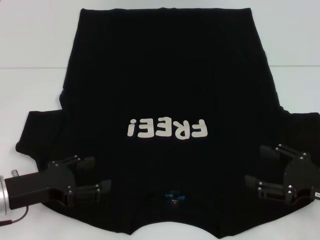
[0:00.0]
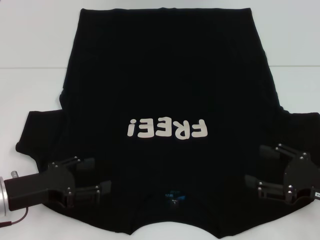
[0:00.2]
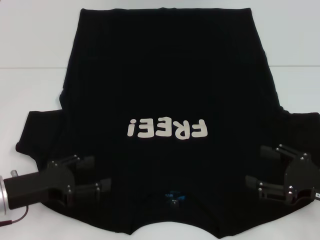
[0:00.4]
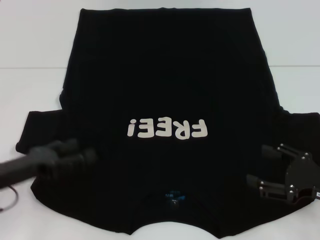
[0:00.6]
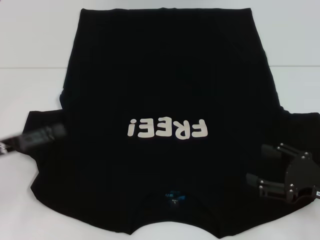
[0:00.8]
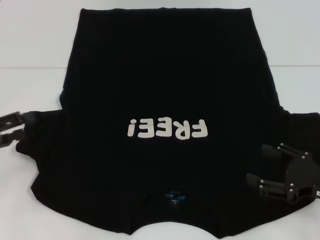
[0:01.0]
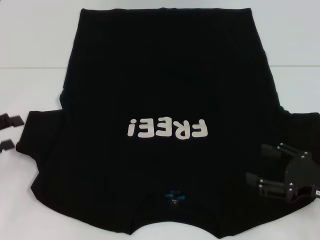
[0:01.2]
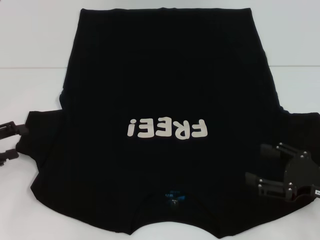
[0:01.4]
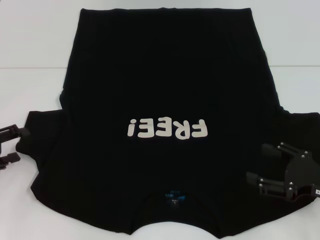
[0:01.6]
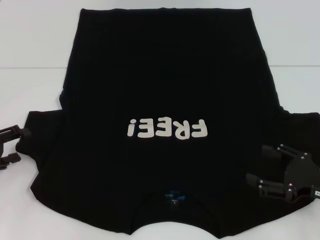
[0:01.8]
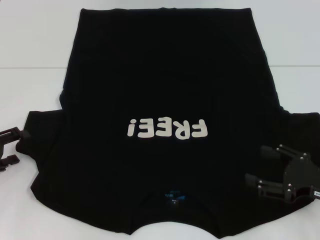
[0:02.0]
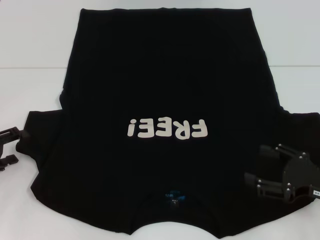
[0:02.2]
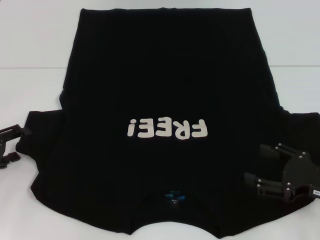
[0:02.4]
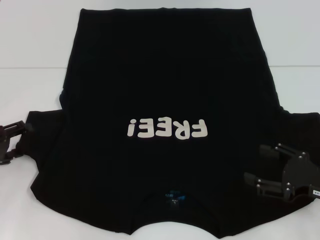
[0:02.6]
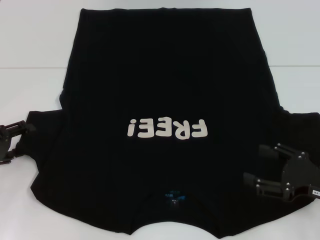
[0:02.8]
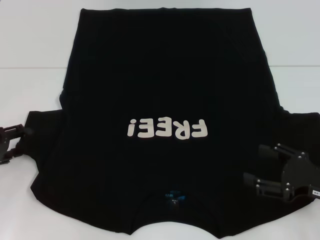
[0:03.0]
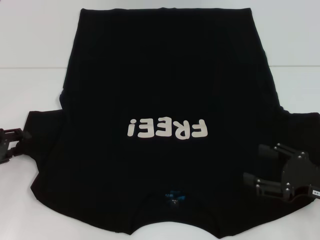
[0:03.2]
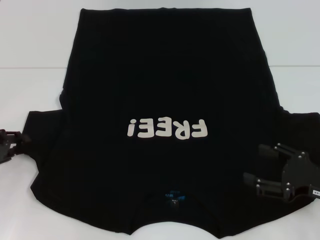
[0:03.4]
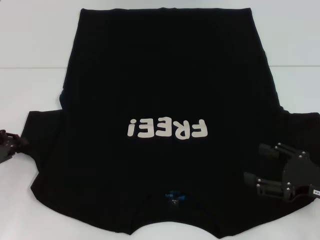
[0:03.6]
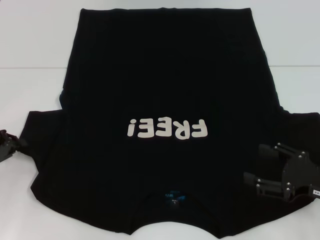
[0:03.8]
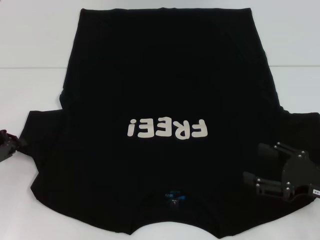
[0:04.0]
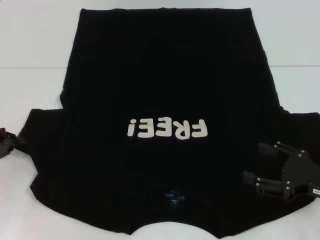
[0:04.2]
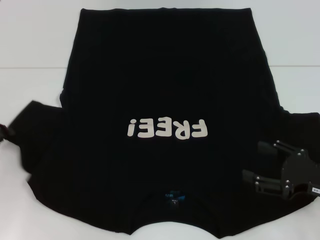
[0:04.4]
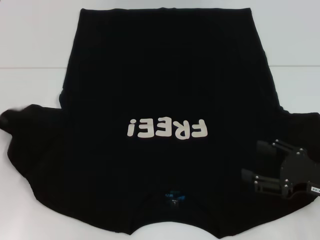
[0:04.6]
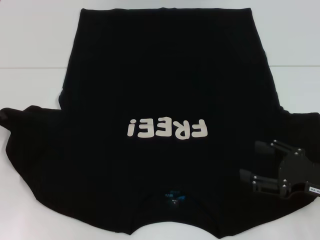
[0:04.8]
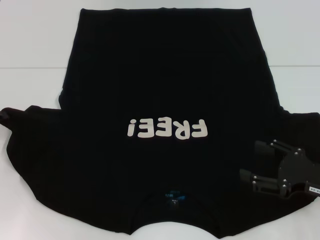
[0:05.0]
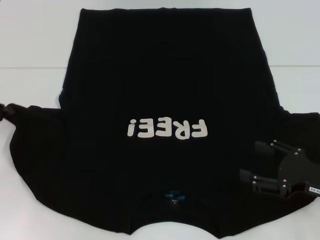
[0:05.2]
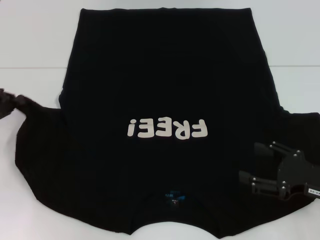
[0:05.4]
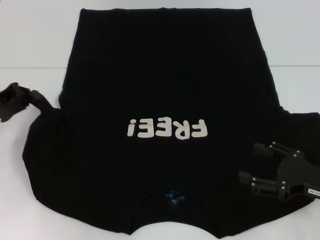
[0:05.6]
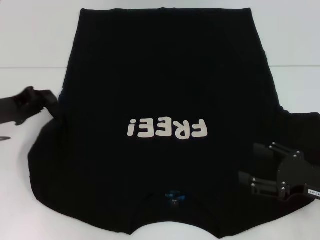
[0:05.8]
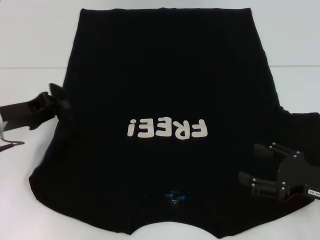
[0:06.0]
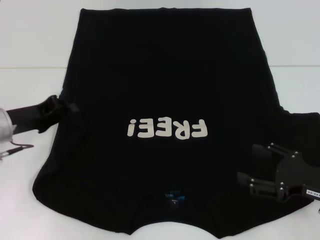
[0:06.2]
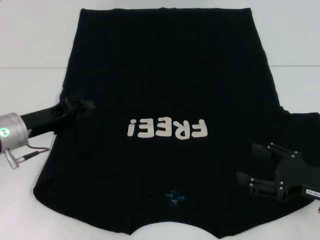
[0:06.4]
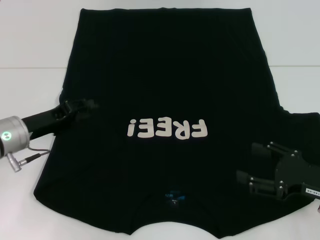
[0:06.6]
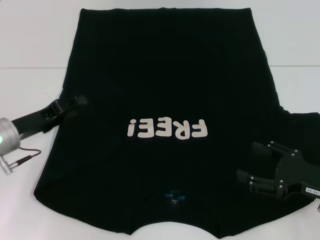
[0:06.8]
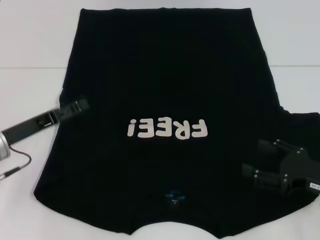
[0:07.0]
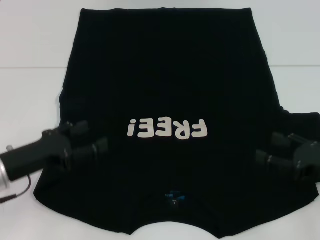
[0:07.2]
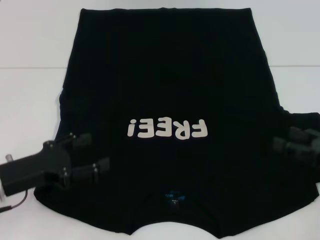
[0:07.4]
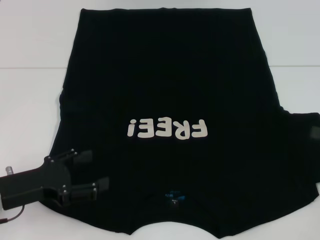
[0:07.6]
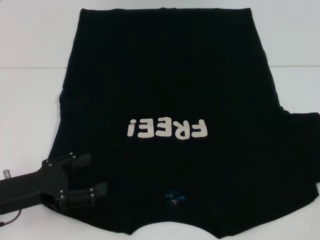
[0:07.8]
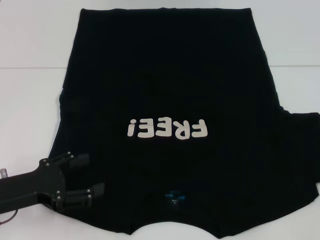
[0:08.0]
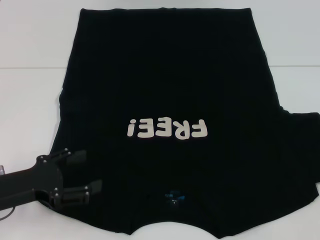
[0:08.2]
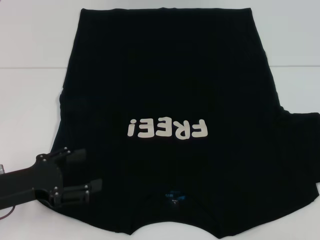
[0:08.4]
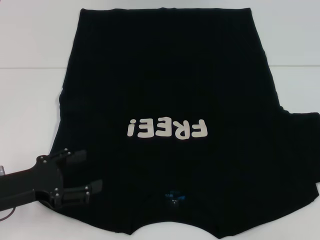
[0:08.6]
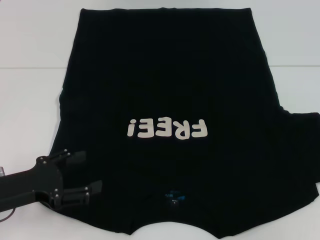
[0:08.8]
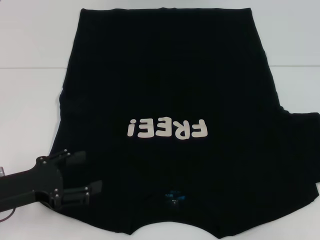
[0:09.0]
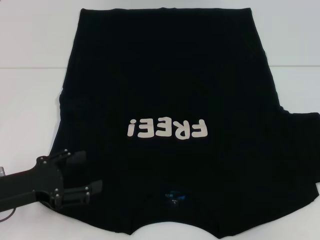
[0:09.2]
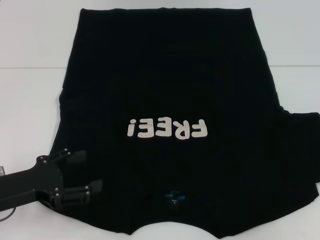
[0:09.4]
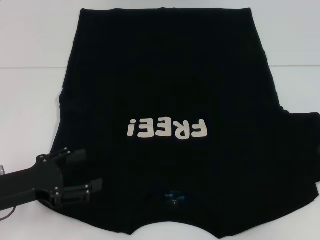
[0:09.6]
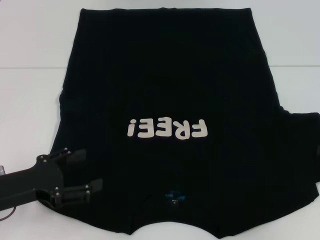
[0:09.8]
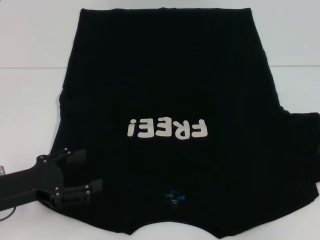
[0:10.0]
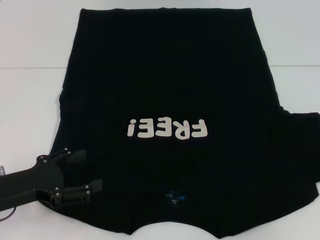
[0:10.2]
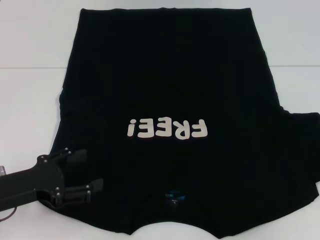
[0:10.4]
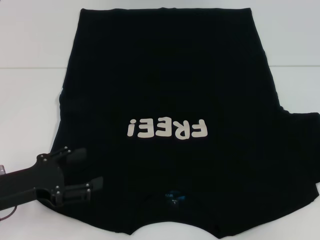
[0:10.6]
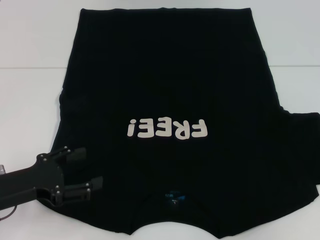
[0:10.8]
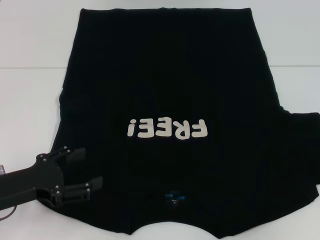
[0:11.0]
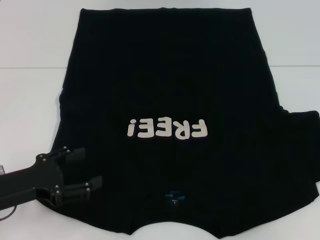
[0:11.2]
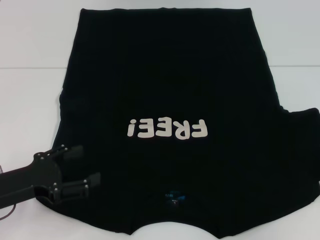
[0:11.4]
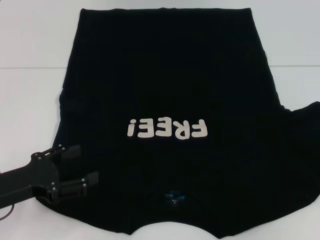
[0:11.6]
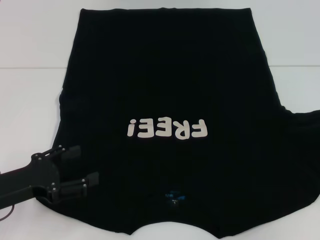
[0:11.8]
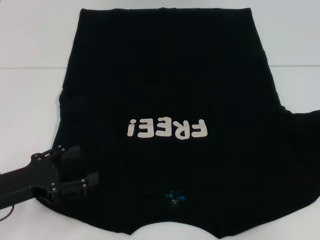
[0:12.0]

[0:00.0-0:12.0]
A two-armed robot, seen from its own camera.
Step, 0:00.0 to 0:08.6: Fold the bottom left sleeve with your left hand.
0:00.0 to 0:01.6: The left gripper is displaced to the left by about 10 cm.
0:03.0 to 0:04.4: The left gripper closes up.
0:04.4 to 0:06.0: The left gripper travels to the right by some 5 cm.
0:06.0 to 0:07.6: The left gripper goes some 10 cm backward, and opens its fingers, while the right gripper heads to the right and upward, covering approximately 10 cm.

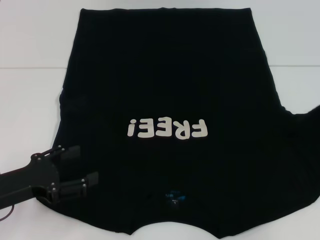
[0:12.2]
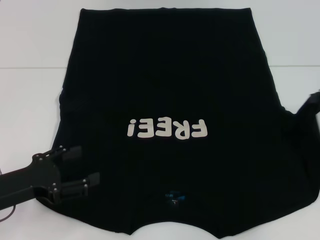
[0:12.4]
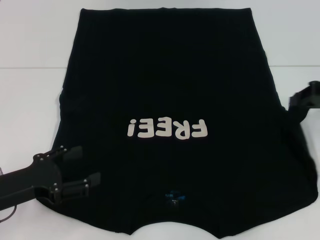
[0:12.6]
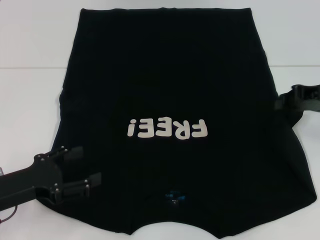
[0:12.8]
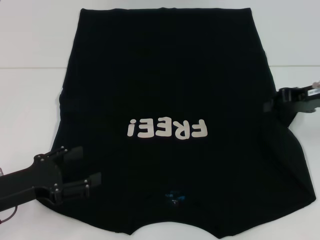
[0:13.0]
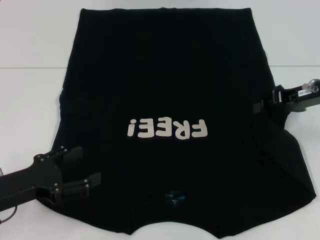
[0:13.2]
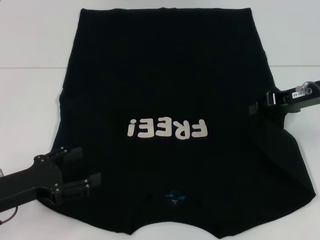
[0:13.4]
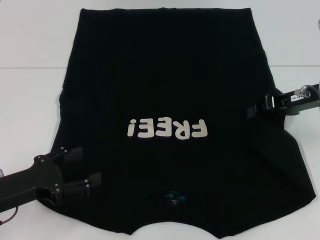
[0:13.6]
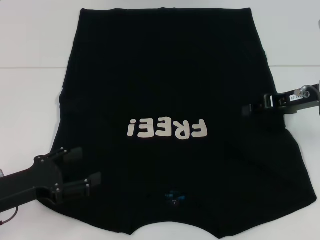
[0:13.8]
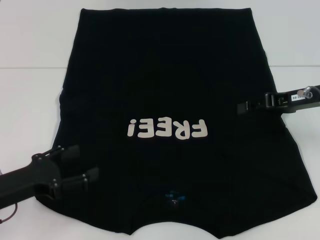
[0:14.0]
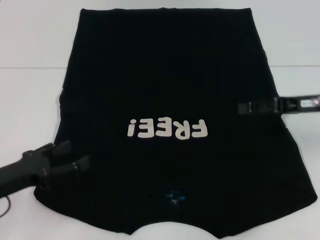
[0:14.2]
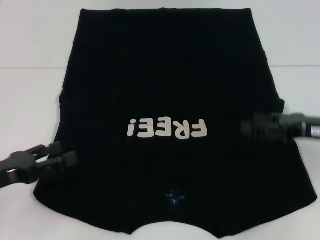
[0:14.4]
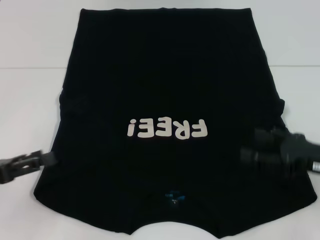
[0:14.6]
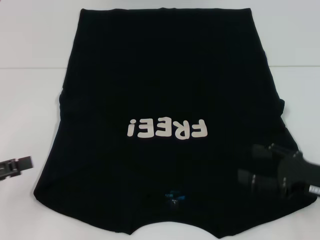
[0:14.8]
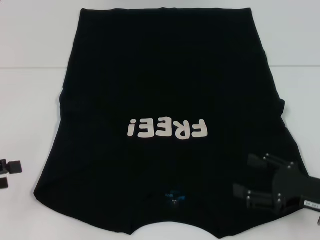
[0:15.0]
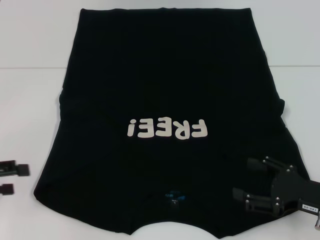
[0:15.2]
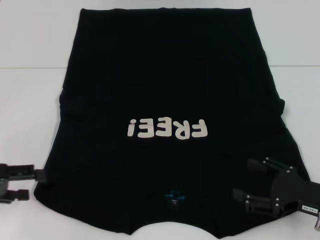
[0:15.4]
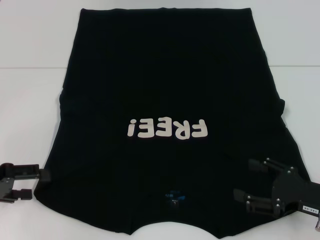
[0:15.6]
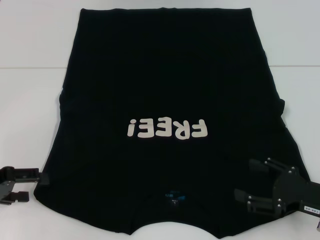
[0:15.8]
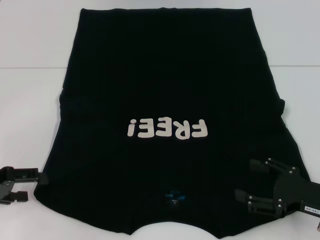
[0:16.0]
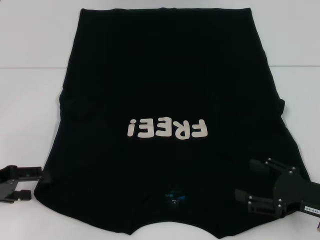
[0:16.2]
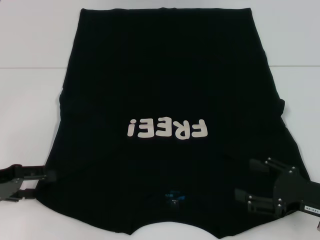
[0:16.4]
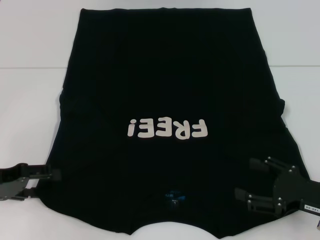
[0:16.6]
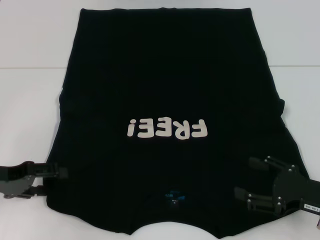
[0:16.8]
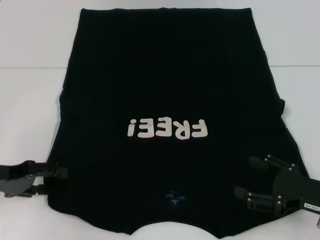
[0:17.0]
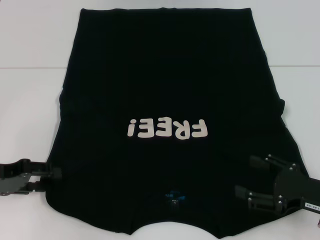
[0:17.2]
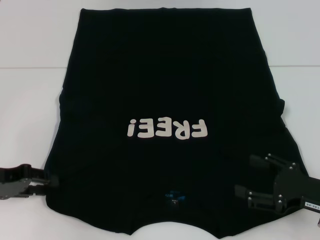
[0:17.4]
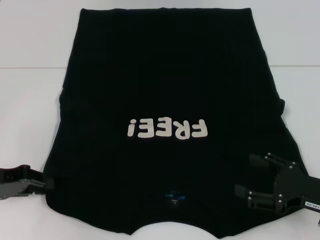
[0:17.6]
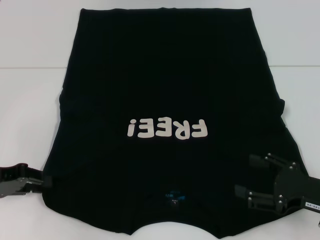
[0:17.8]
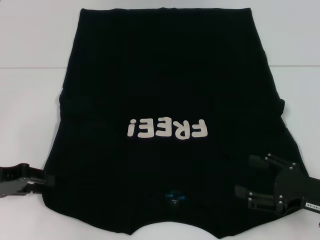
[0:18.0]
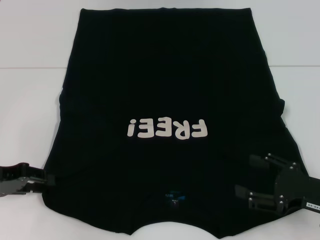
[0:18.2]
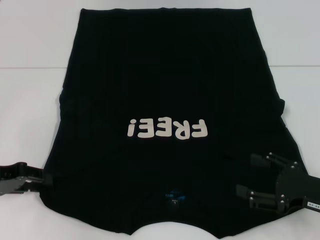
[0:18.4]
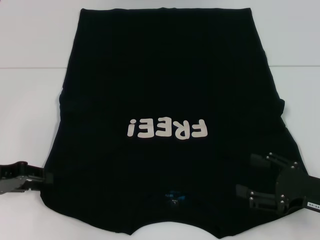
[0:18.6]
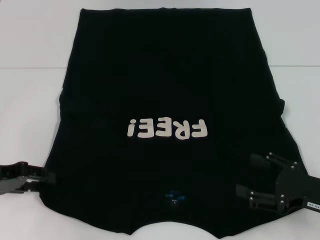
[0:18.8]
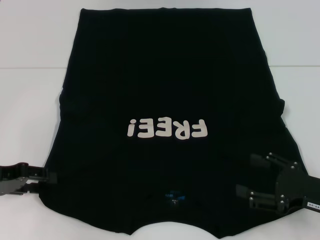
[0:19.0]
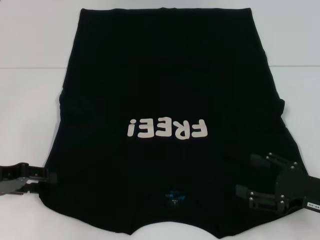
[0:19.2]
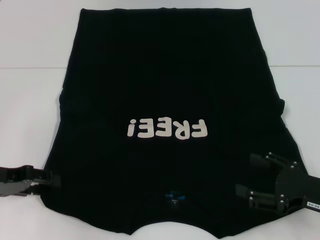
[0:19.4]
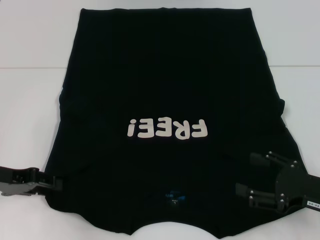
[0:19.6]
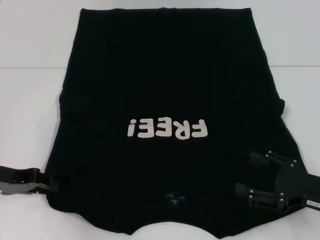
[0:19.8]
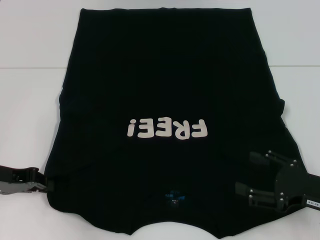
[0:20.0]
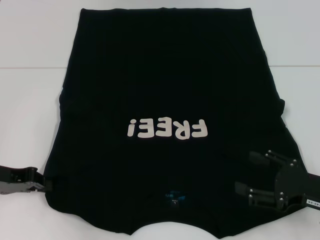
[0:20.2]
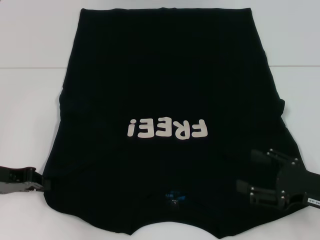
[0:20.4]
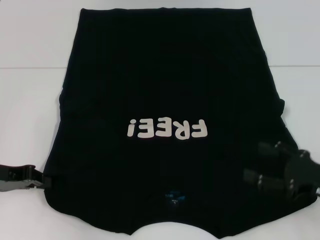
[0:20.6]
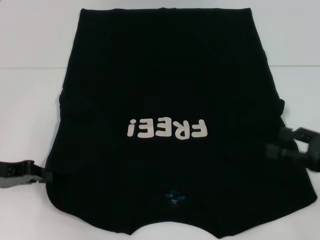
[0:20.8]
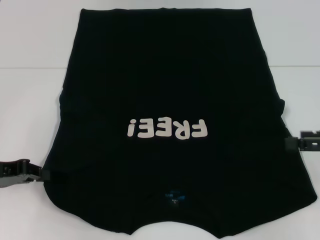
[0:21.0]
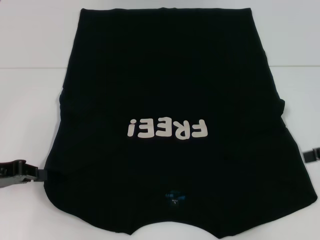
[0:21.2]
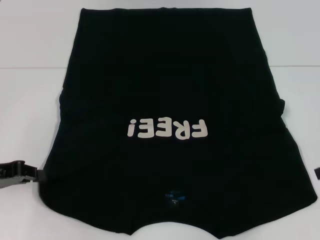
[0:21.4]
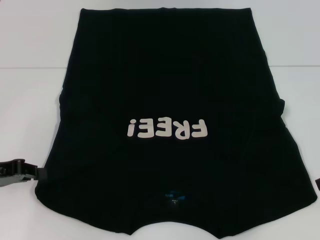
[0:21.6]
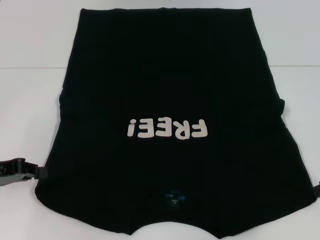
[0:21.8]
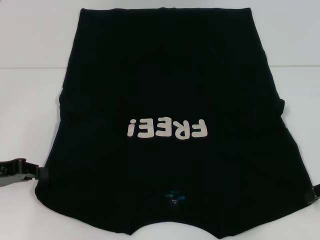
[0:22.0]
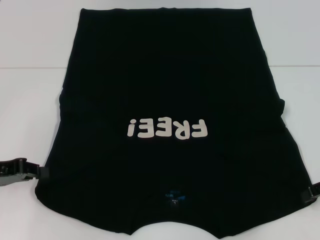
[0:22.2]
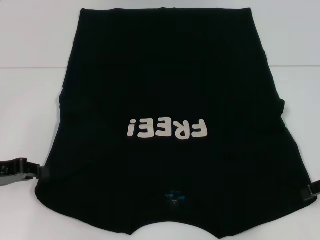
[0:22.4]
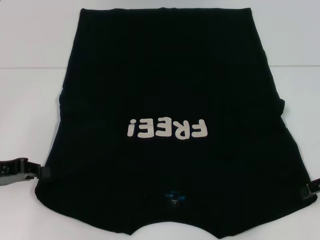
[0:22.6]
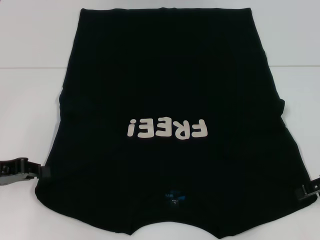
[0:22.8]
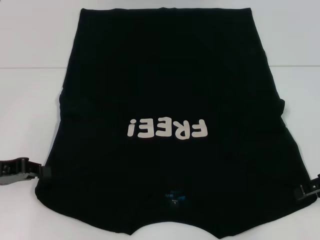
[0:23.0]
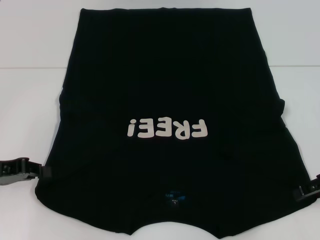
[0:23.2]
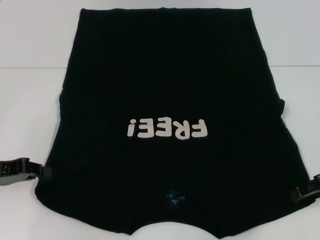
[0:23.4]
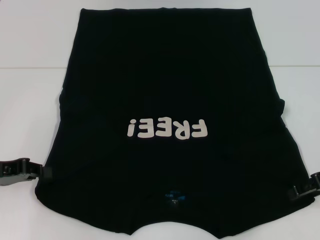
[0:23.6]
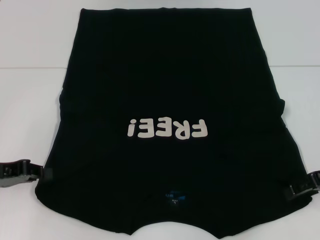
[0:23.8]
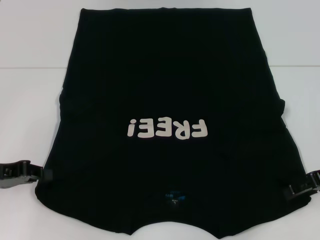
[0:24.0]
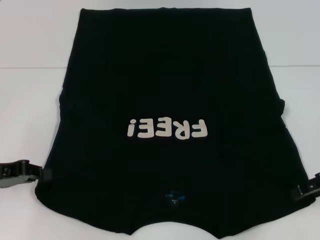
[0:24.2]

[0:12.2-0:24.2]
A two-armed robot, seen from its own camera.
Step, 0:12.2 to 0:14.6: Fold the bottom right sleeve with your right hand.
Step, 0:14.8 to 0:20.8: Grab the bottom left corner with your left hand.
0:12.2 to 0:13.8: The right gripper goes roughly 10 cm to the left.
0:13.8 to 0:15.2: The left gripper heads to the left and upward, covering about 10 cm, while the right gripper goes some 20 cm backward and downward, and opens up.
0:15.2 to 0:16.6: The left gripper ends up some 5 cm from where it was.
0:16.6 to 0:18.2: The left gripper closes its fingers.
0:18.2 to 0:19.8: The grippers stay close to where they were, moving slightly.
0:19.8 to 0:21.2: The right gripper travels upward, forward and to the right by approximately 15 cm.
0:21.2 to 0:22.6: The grippers move only a little.
0:22.6 to 0:24.2: There are only small adjustments of the grippers.
